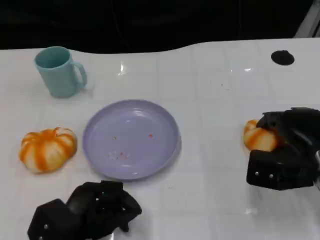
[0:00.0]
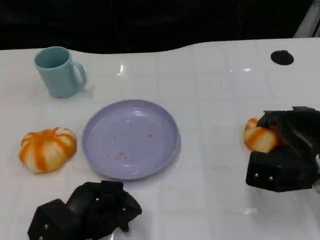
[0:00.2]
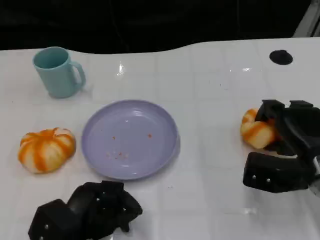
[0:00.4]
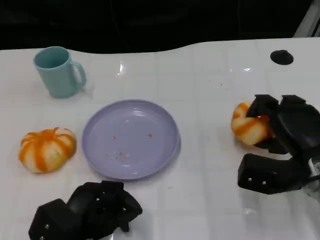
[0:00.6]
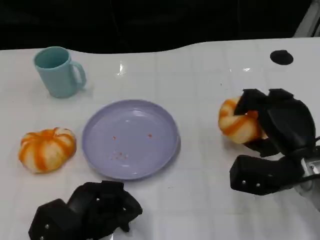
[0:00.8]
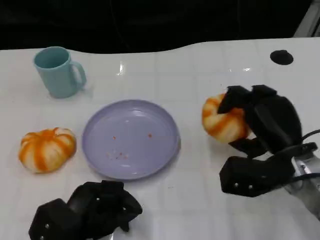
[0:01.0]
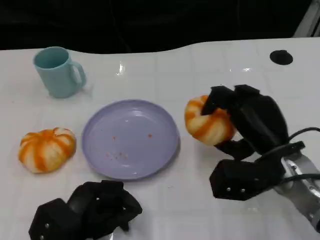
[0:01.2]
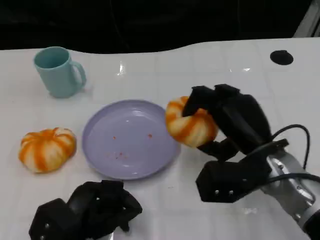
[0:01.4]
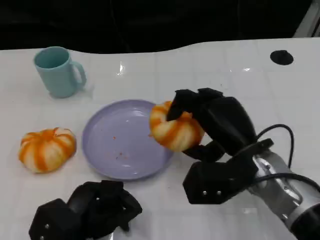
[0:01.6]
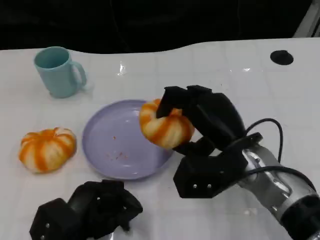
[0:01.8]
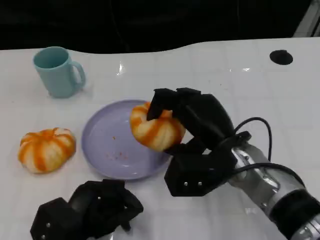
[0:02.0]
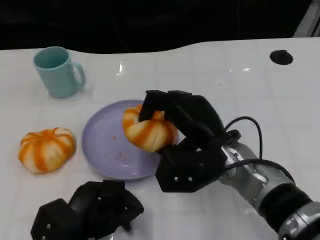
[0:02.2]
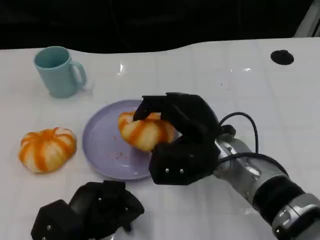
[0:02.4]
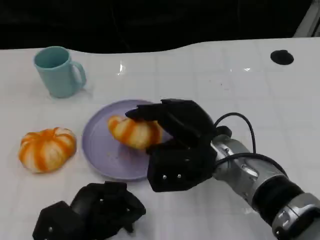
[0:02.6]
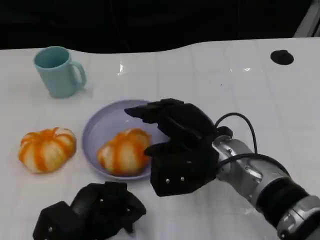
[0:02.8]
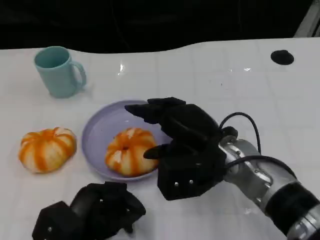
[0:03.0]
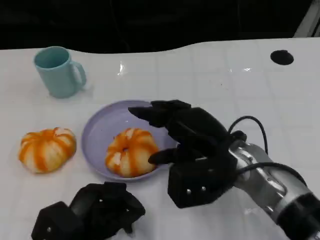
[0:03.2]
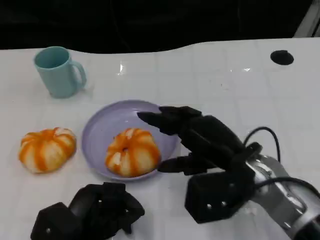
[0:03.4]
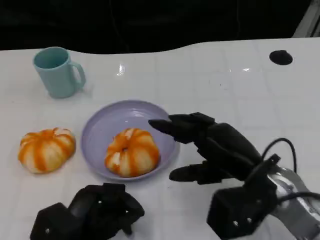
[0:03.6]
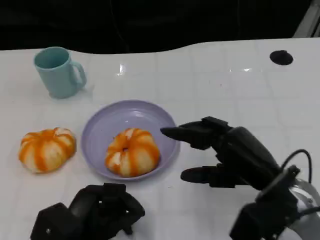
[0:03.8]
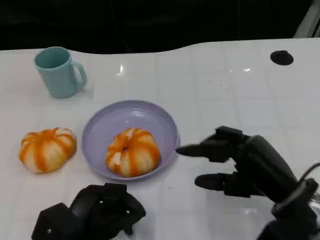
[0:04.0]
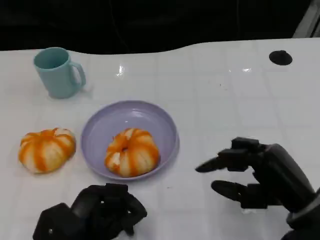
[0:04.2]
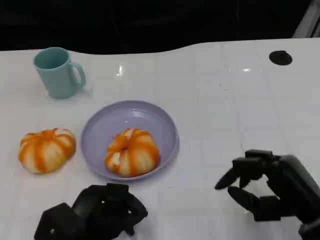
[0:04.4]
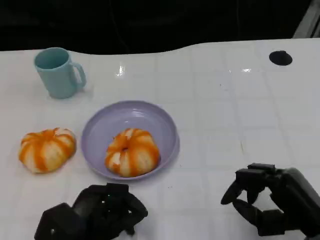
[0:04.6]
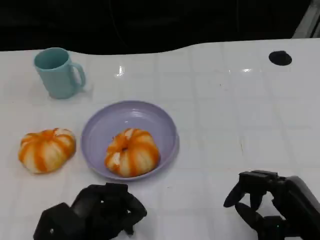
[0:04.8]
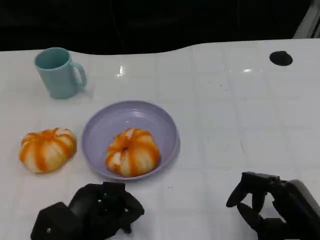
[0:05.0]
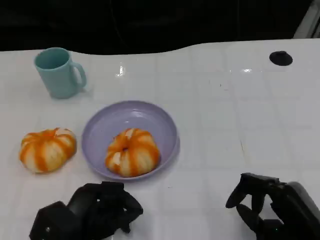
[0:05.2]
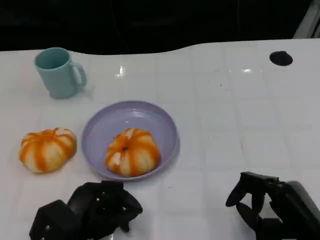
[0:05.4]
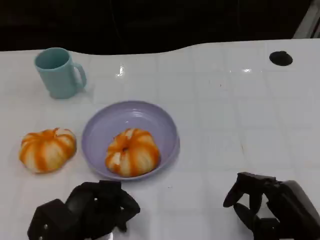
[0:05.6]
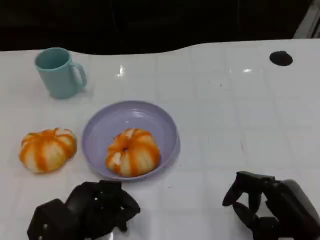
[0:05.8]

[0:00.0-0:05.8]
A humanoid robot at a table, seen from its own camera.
Task of the whole recording: Grasp the bread from the table and place it into the plate.
0:00.0 to 0:01.4: The right hand is displaced to the left by about 10 cm.
0:01.4 to 0:02.8: The right hand moves to the left, roughly 5 cm.
0:02.8 to 0:04.4: The right hand is displaced to the right and backward by approximately 15 cm.
0:04.4 to 0:05.8: The hands stay close to where they were, moving slightly.

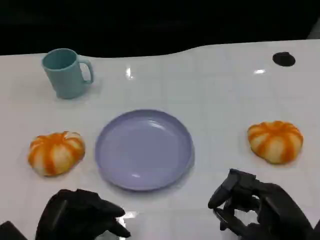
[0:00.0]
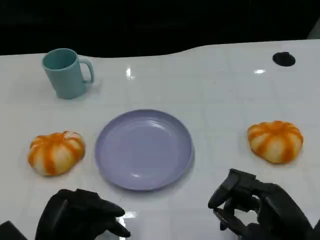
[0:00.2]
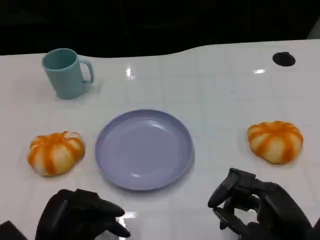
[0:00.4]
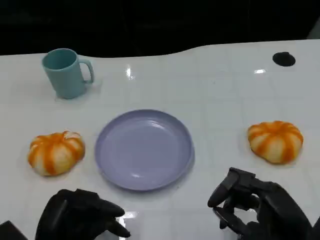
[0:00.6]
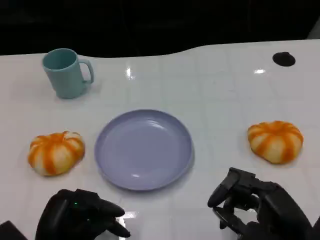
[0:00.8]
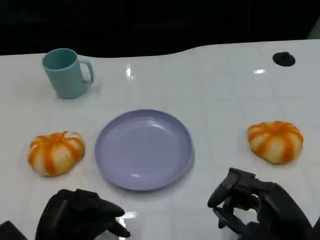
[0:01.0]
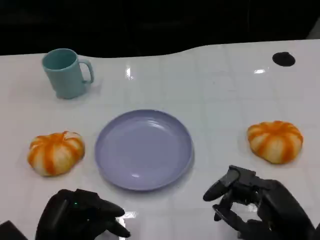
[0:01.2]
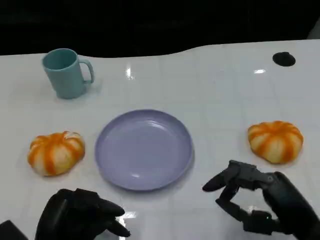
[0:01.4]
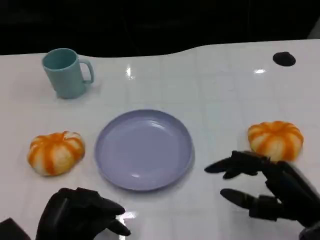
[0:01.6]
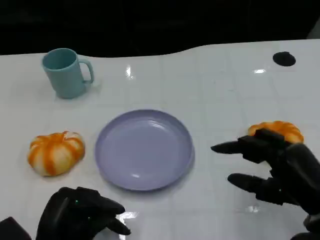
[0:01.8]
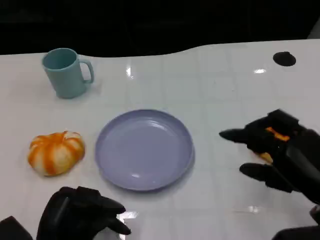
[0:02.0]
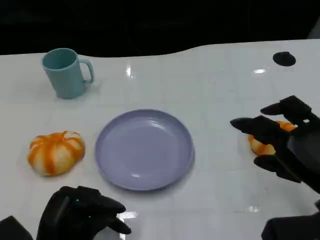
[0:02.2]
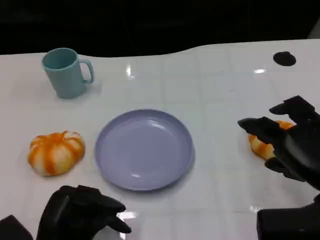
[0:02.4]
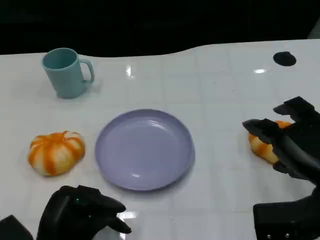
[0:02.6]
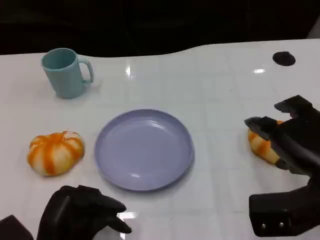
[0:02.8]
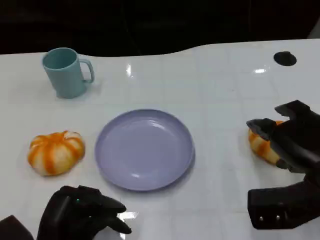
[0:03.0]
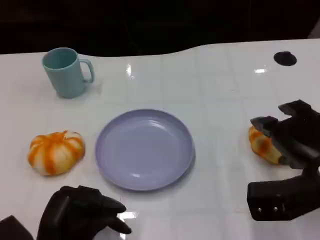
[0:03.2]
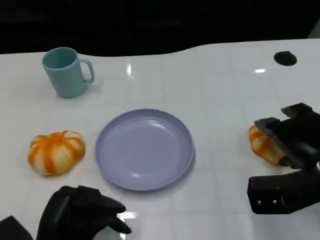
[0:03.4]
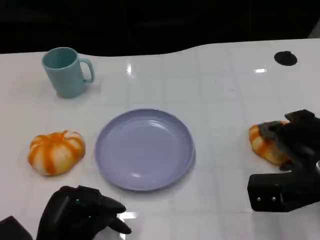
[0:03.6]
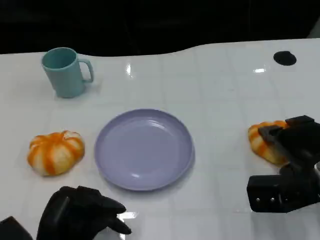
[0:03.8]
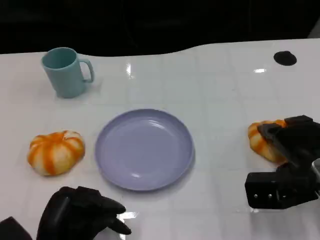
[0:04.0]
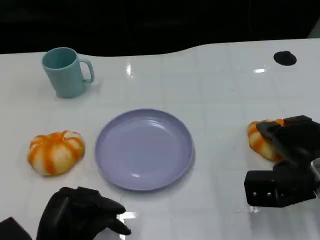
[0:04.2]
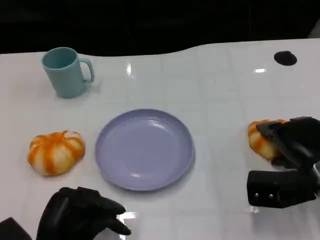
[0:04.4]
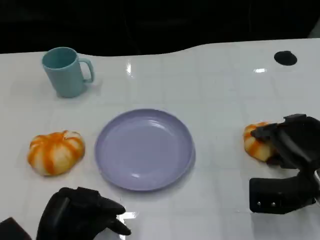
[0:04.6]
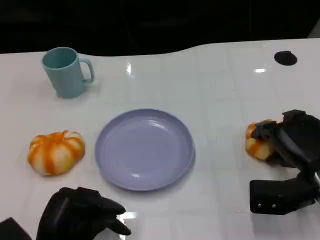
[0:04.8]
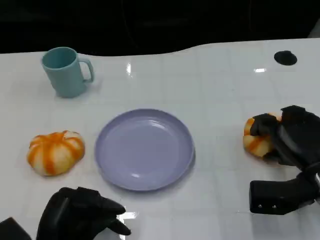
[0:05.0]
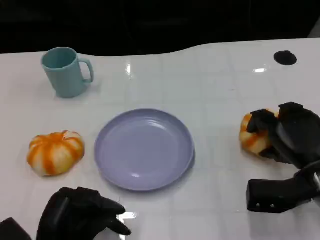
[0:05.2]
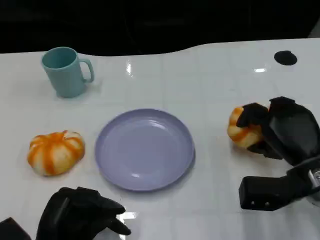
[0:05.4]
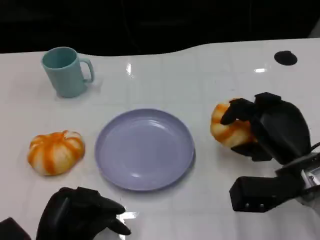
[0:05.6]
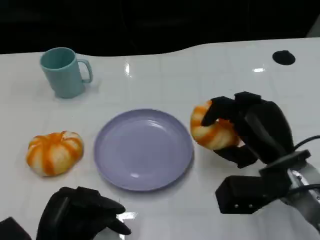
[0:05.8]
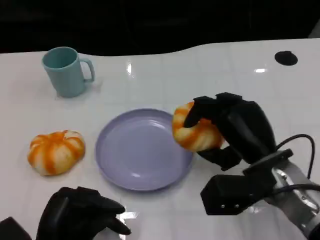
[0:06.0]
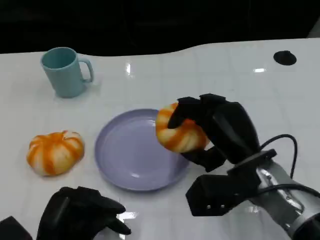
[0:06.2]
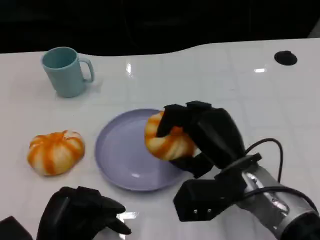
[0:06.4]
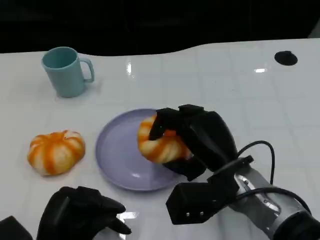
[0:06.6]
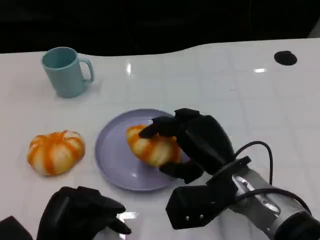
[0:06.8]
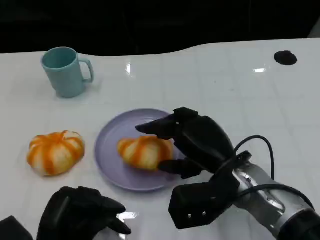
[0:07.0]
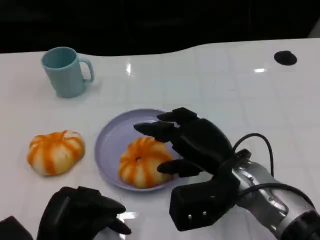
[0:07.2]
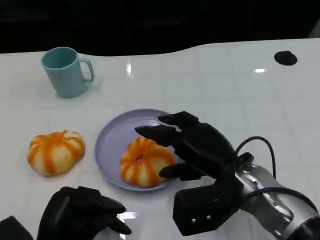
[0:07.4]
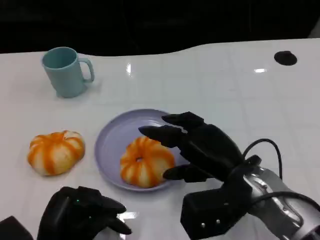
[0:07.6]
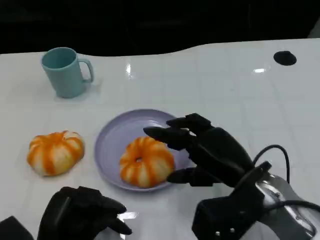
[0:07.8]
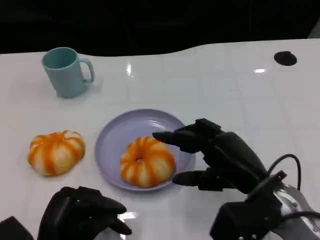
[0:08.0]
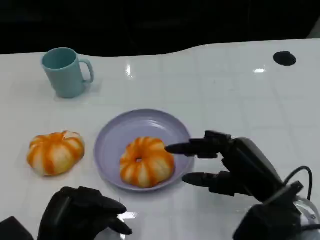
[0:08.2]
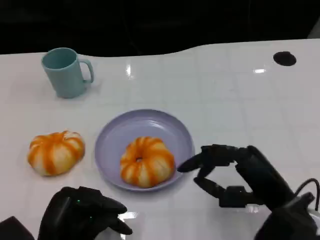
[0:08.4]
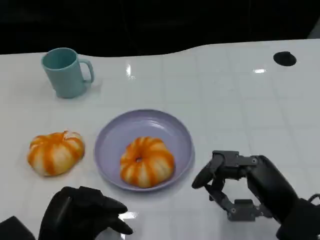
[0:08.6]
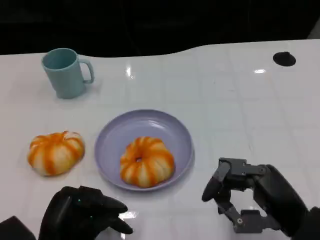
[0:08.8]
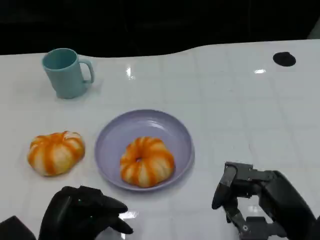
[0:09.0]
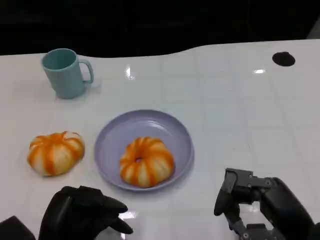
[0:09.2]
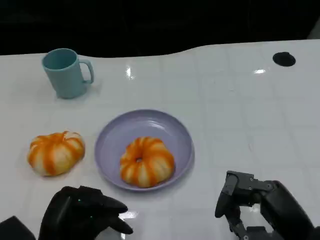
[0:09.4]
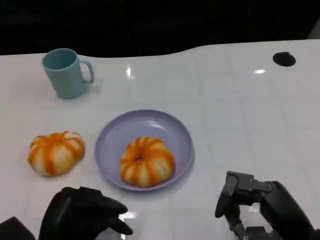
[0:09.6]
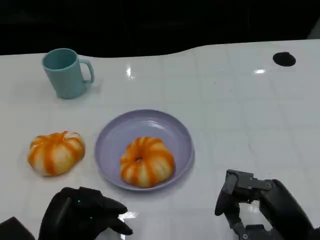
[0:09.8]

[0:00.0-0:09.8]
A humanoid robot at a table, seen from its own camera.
Task of the whole recording: Grasp the bread from the table and place it into the plate.
0:01.4 to 0:02.8: The right hand shifts some 10 cm upward and forward.
0:02.8 to 0:04.2: The right hand goes approximately 10 cm downward and forward.
0:05.6 to 0:07.0: The right hand shifts approximately 10 cm to the left.
0:07.0 to 0:08.4: The right hand goes roughly 10 cm to the right and backward.
0:08.4 to 0:09.8: The hands move only a little.

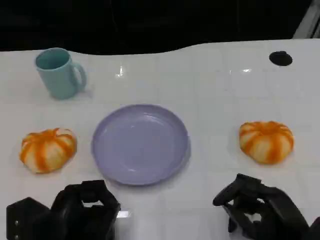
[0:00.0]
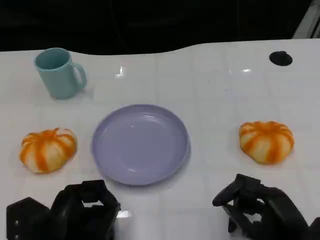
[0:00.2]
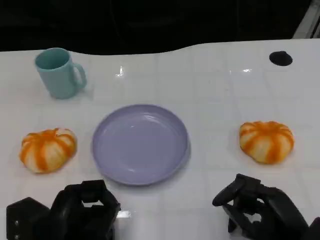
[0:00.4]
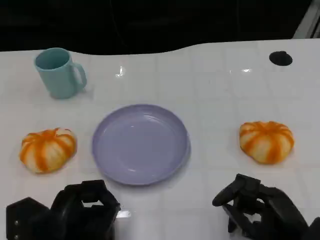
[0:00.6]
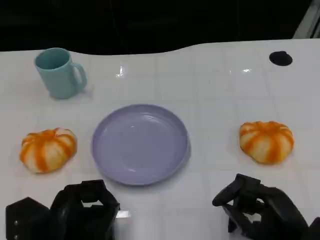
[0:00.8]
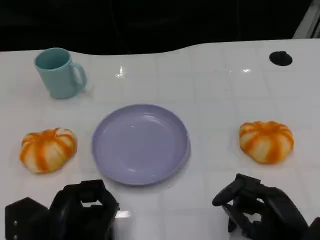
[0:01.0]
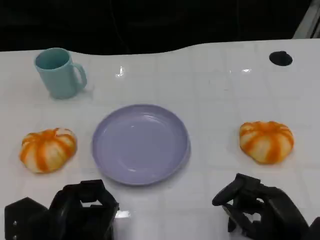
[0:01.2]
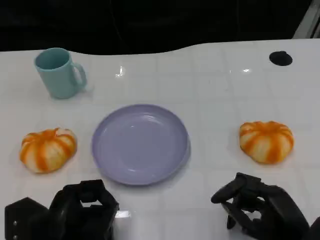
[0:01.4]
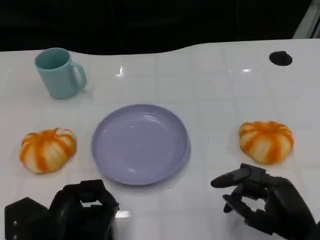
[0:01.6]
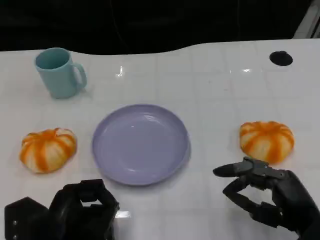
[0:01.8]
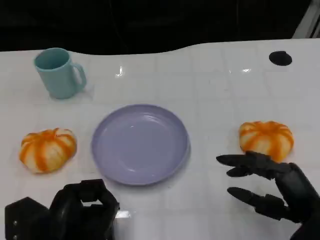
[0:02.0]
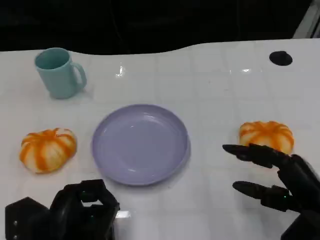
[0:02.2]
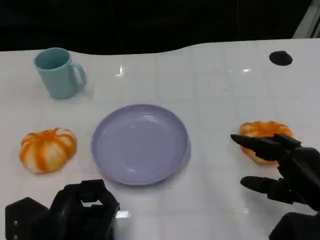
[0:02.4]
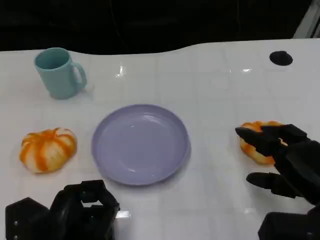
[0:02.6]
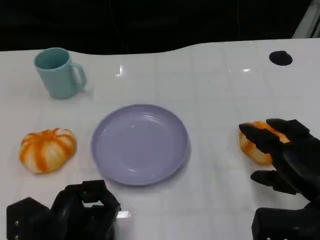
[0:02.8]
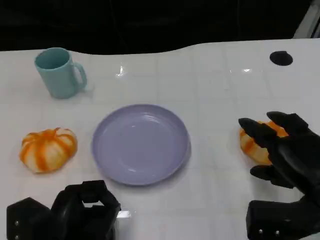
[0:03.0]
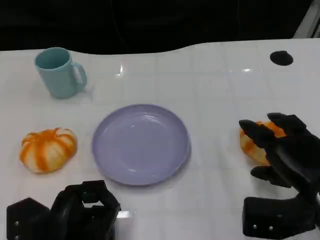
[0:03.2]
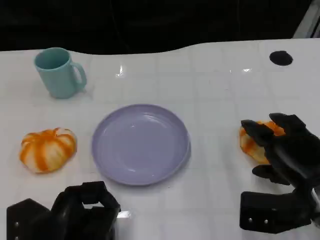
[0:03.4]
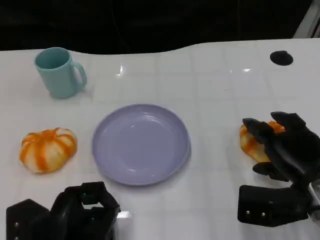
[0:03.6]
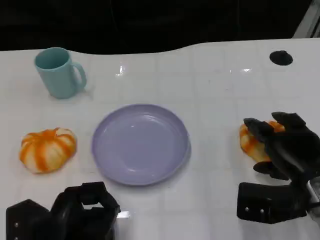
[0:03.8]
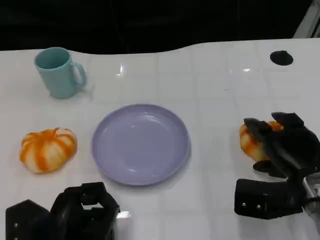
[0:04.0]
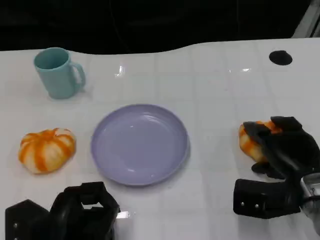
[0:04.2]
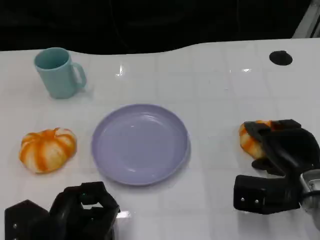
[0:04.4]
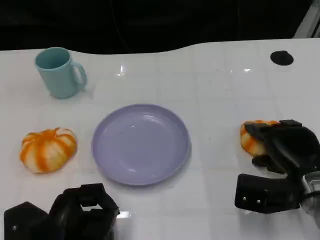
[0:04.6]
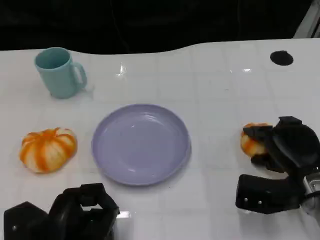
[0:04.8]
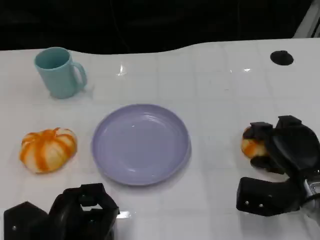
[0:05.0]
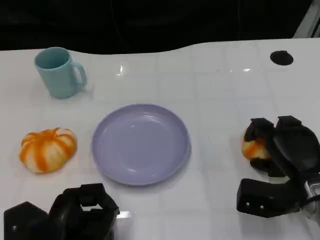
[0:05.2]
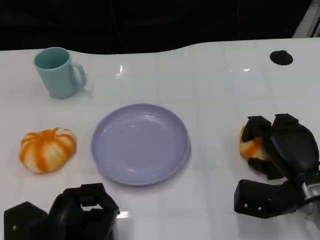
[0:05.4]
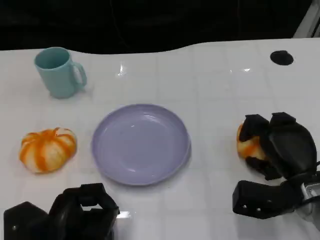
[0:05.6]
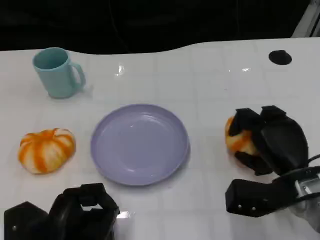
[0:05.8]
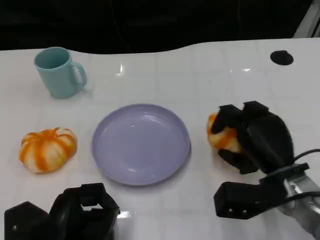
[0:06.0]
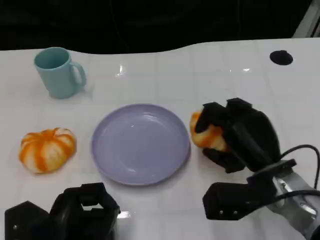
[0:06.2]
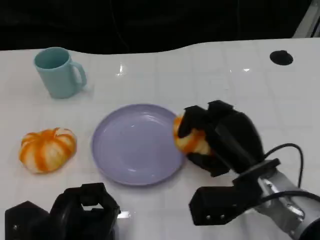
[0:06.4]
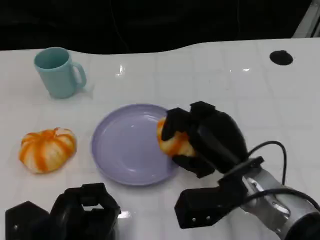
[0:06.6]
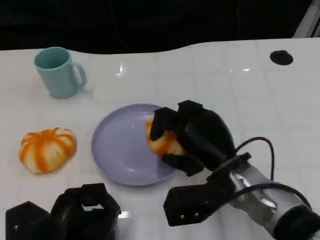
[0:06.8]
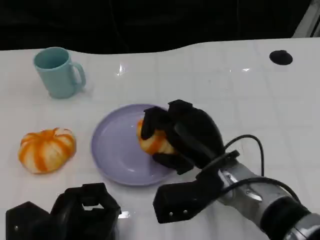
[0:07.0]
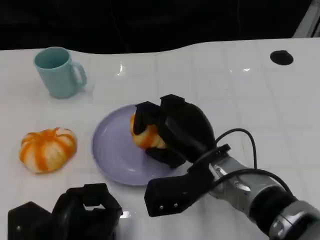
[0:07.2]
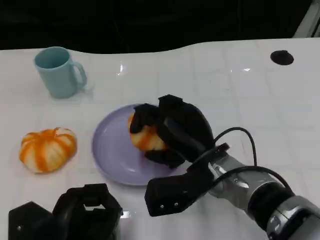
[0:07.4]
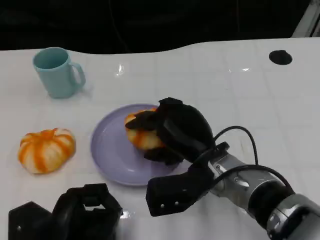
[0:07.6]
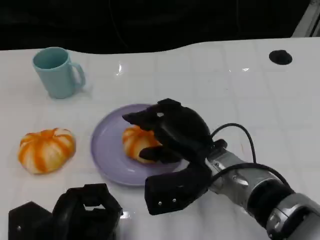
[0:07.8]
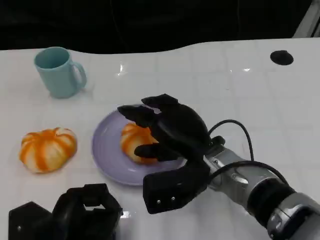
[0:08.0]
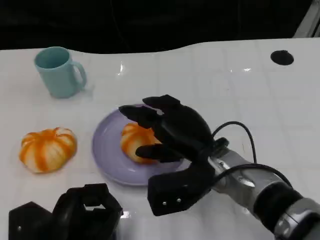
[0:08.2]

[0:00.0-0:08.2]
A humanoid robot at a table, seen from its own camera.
Task of the whole recording: Grasp the bread from the table and place it into the plate.
0:00.0 to 0:01.6: The hands stay close to where they were, moving slightly.
0:01.6 to 0:03.2: The right hand is displaced forward by some 5 cm.
0:03.2 to 0:05.0: The right hand changes place by about 5 cm.
0:05.0 to 0:06.6: The right hand is displaced to the left by roughly 10 cm.
0:06.6 to 0:08.2: The hands make only small movements.
